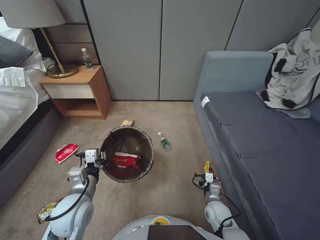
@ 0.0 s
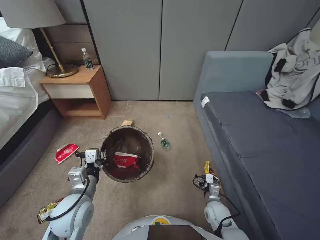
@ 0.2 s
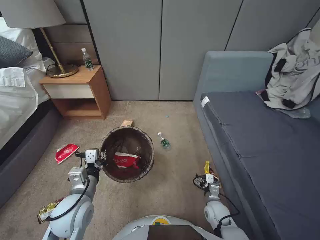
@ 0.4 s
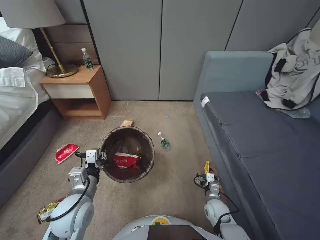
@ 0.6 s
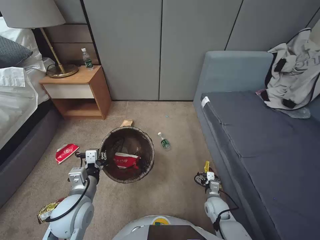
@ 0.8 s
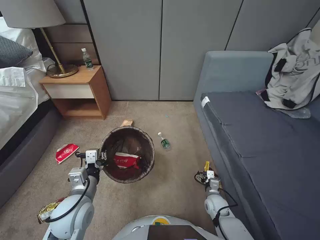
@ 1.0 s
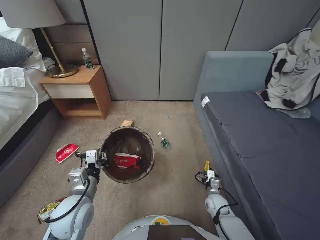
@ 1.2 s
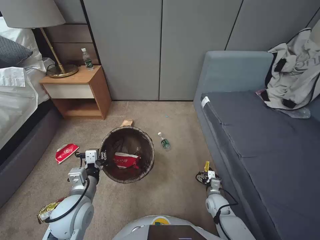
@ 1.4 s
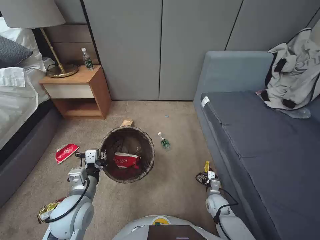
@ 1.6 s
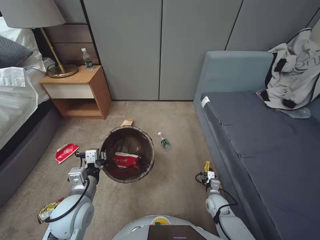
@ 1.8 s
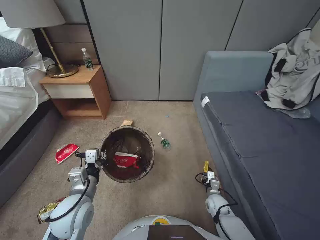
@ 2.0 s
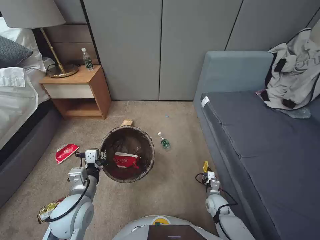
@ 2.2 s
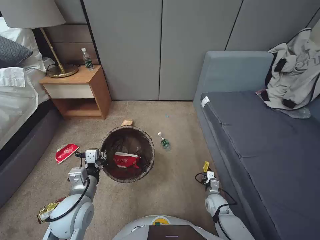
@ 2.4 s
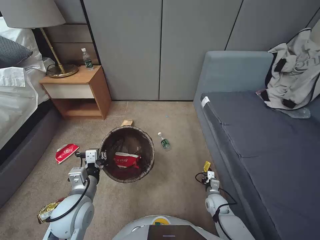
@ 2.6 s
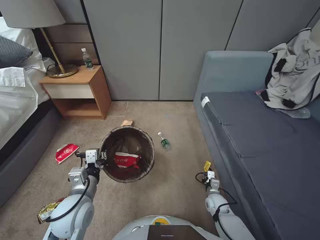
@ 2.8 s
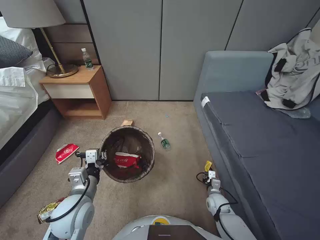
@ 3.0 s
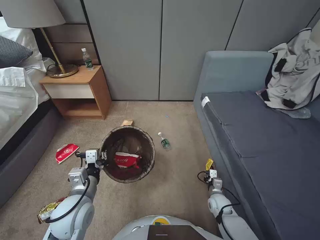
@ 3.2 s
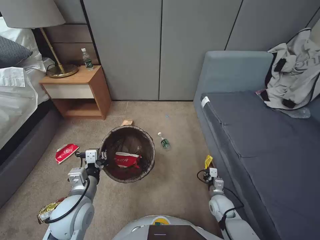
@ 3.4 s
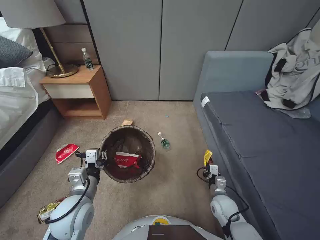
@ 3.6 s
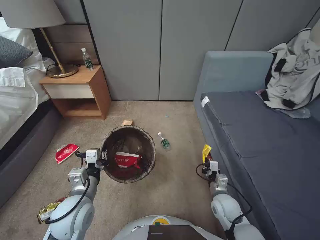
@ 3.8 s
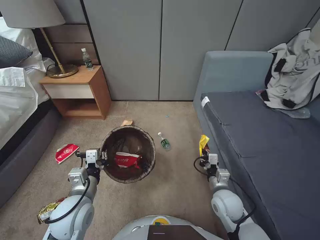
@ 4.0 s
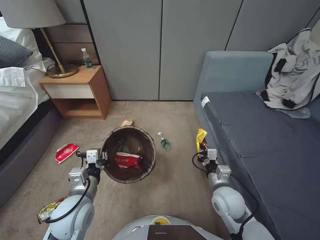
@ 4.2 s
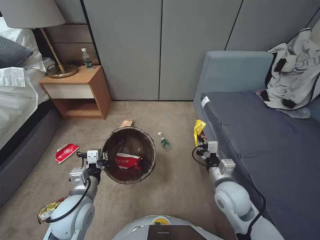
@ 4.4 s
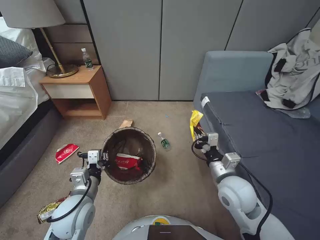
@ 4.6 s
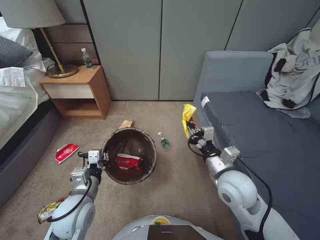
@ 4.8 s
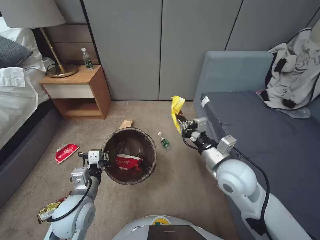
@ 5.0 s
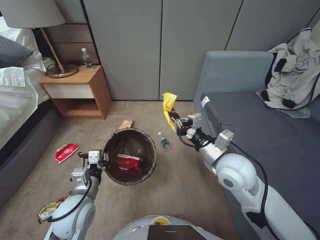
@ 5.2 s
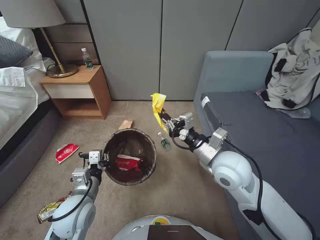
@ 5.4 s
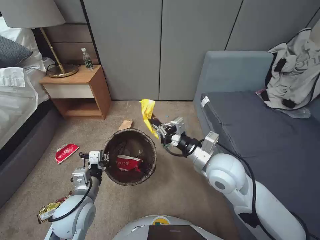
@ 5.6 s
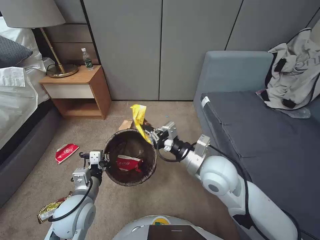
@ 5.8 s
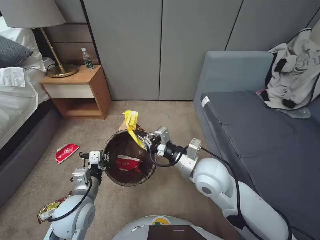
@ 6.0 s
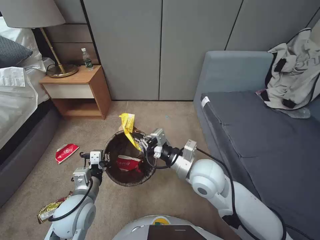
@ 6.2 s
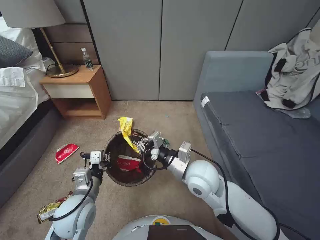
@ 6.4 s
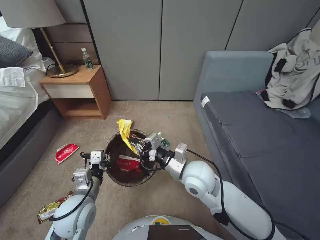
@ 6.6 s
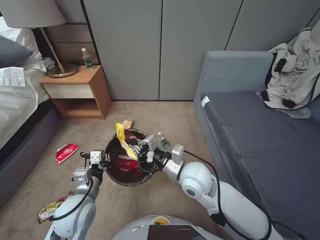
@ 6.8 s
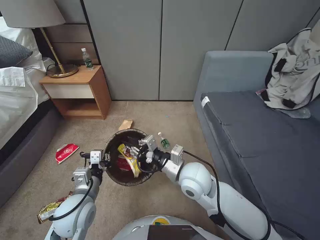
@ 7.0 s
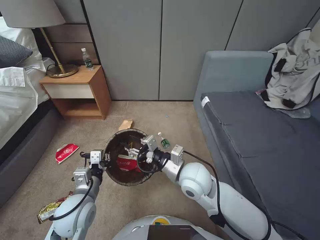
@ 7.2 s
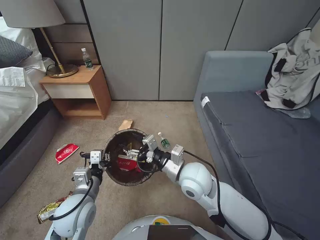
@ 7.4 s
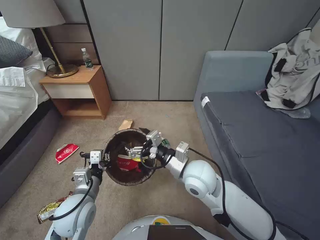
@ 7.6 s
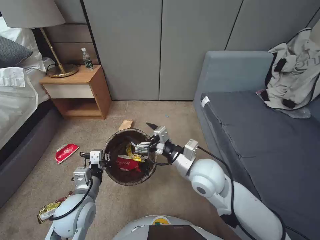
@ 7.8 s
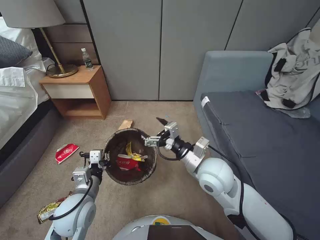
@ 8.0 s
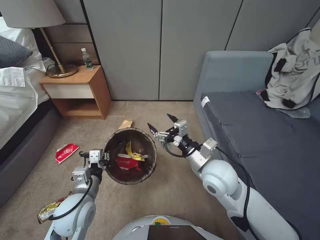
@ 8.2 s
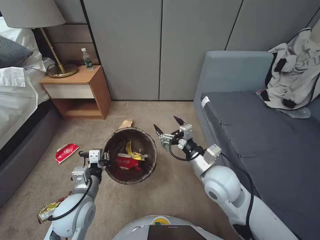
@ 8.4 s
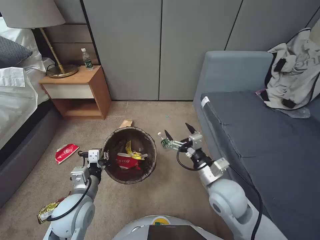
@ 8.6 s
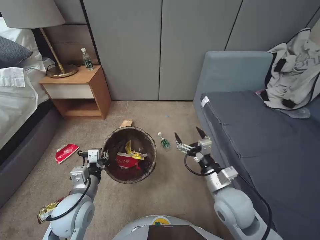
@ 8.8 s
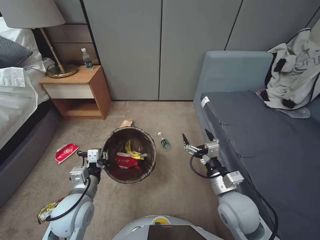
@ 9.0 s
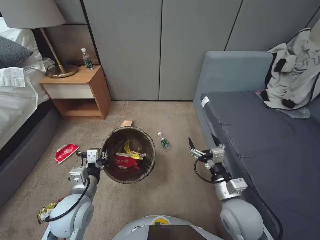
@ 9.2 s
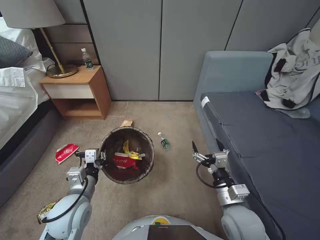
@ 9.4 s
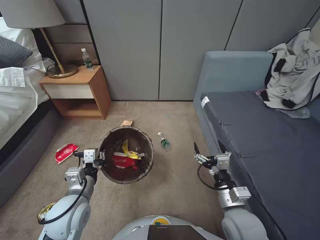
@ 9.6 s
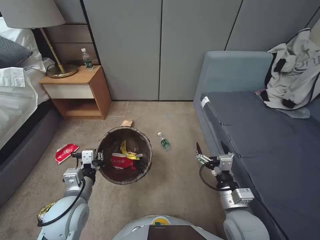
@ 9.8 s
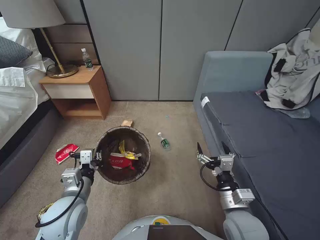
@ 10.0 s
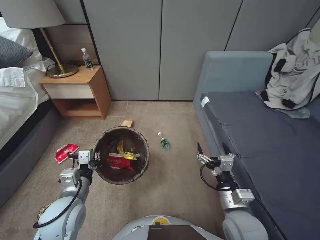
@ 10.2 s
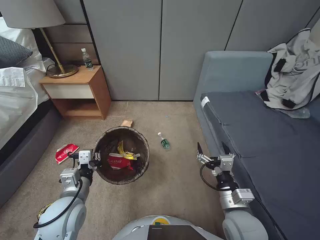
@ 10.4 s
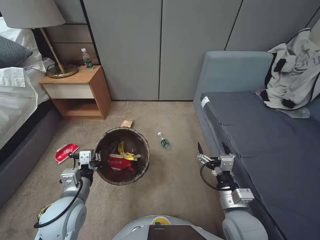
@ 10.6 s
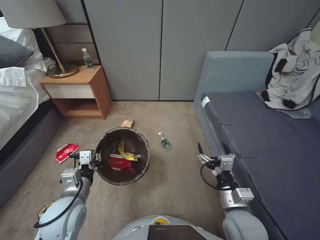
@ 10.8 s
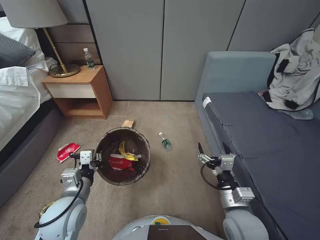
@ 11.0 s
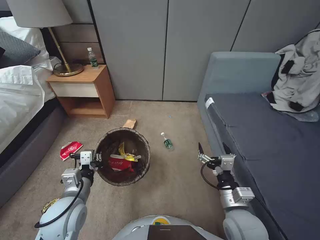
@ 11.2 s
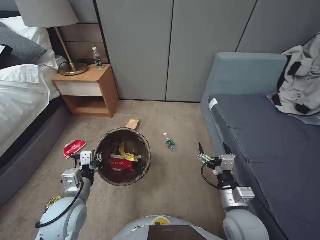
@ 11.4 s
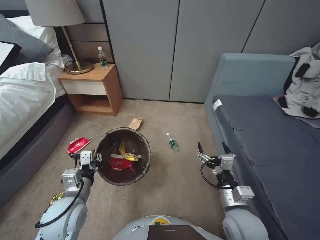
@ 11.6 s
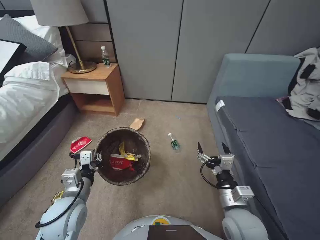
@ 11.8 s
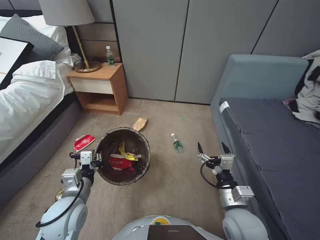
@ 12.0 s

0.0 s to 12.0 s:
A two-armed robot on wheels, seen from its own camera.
Task of the whole recording: Pick up the trash bin, then pick up the garbage from the floor and place it into the trash bin.
0.0 to 1.6 s: The right gripper shifts about 5 cm downward.
1.6 to 3.0 s: The right gripper closes its fingers.
3.0 to 4.4 s: The right gripper travels upward by some 25 cm.
4.4 to 6.0 s: The right gripper is displaced upward and to the left by about 15 cm.
6.0 to 7.6 s: The right gripper opens its fingers.
7.6 to 9.0 s: The right gripper is displaced to the right and backward by about 15 cm.
9.0 to 10.4 s: The right gripper changes place by about 5 cm.

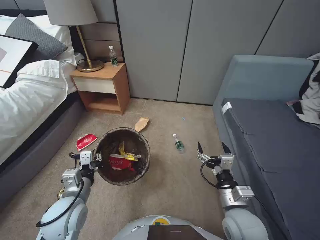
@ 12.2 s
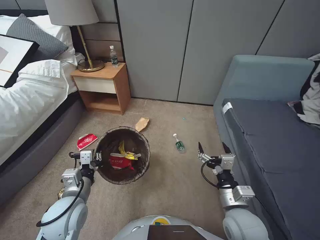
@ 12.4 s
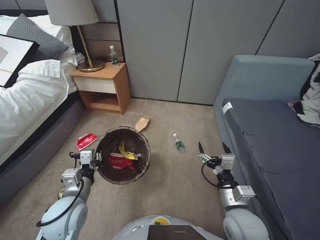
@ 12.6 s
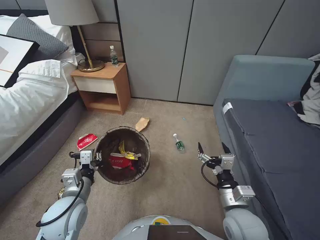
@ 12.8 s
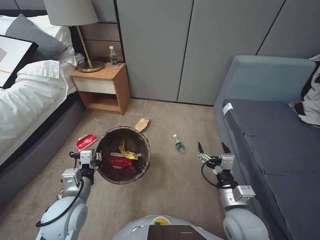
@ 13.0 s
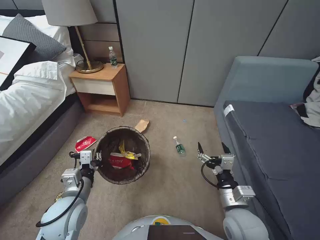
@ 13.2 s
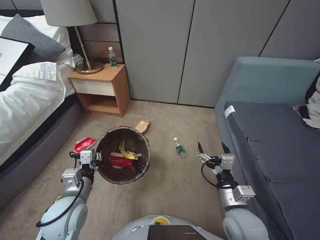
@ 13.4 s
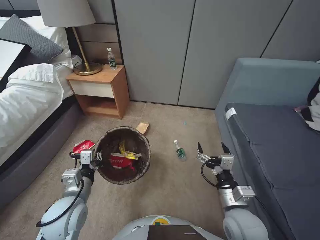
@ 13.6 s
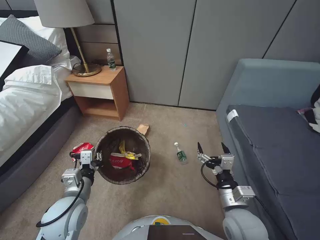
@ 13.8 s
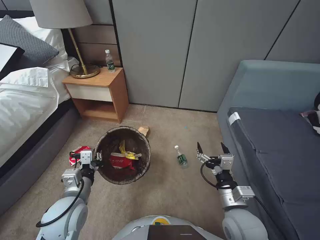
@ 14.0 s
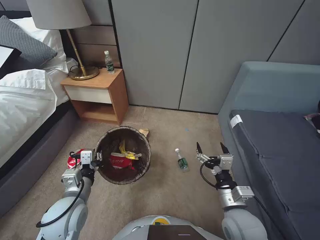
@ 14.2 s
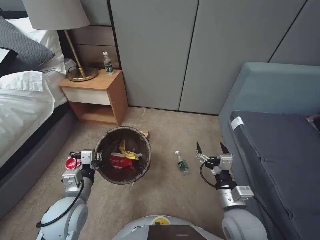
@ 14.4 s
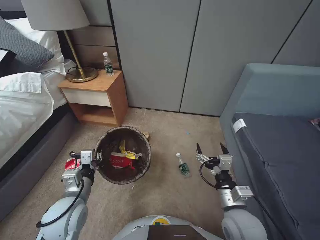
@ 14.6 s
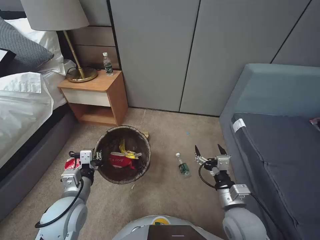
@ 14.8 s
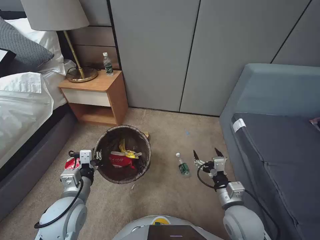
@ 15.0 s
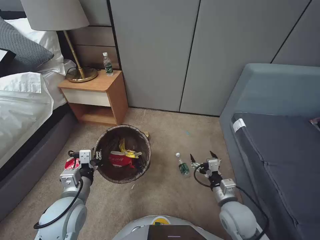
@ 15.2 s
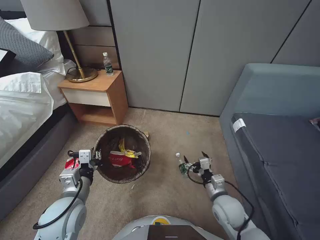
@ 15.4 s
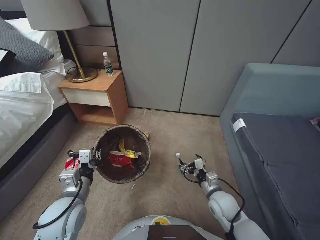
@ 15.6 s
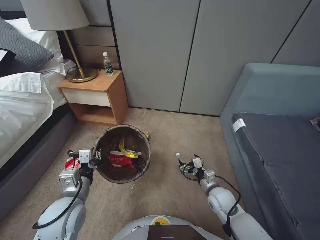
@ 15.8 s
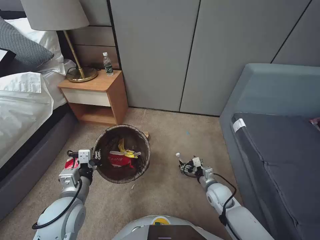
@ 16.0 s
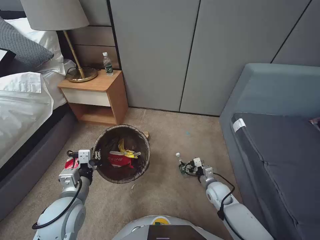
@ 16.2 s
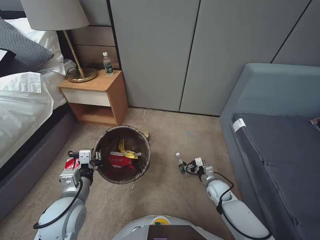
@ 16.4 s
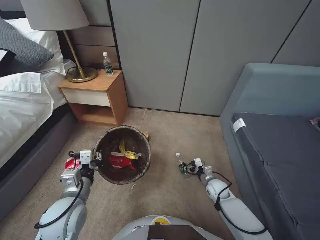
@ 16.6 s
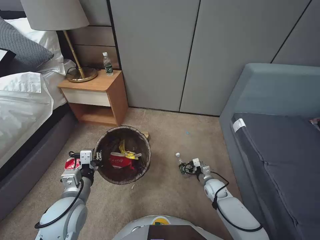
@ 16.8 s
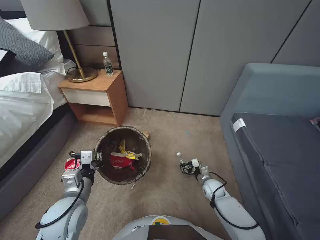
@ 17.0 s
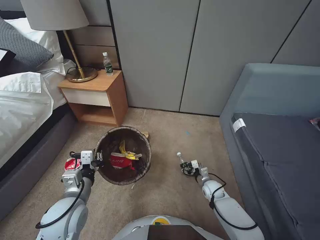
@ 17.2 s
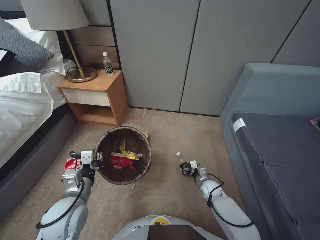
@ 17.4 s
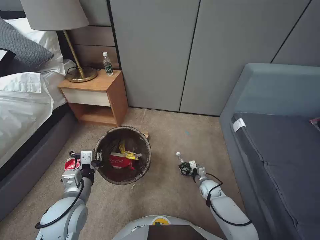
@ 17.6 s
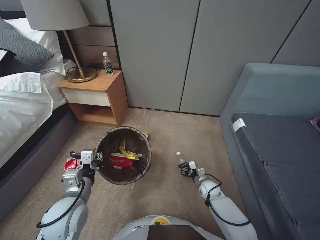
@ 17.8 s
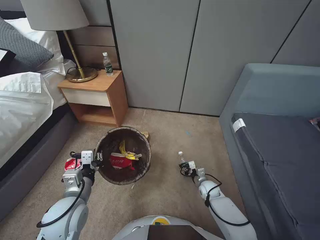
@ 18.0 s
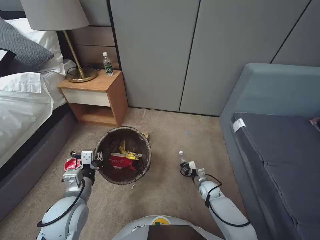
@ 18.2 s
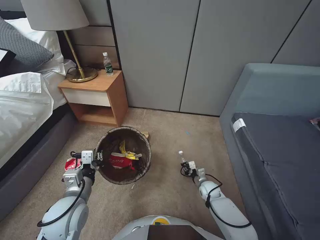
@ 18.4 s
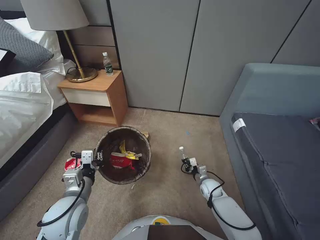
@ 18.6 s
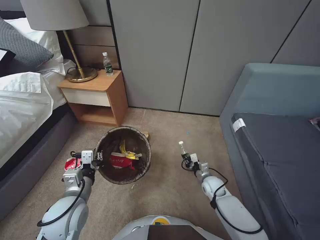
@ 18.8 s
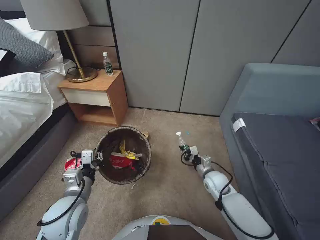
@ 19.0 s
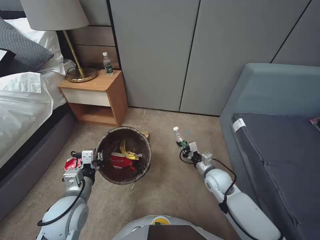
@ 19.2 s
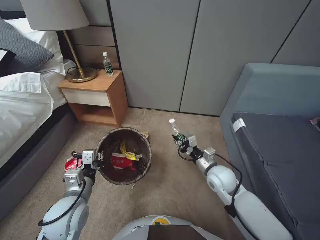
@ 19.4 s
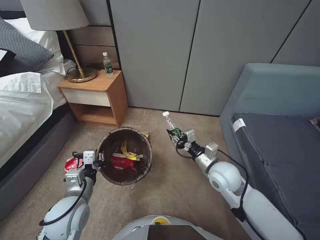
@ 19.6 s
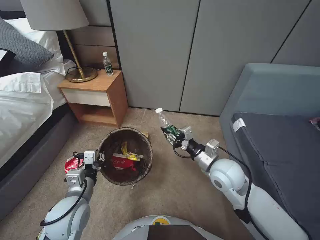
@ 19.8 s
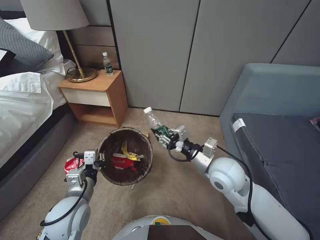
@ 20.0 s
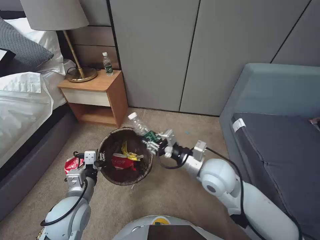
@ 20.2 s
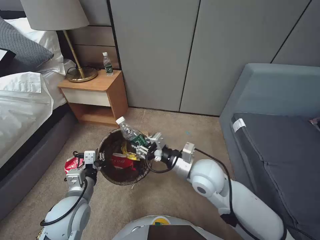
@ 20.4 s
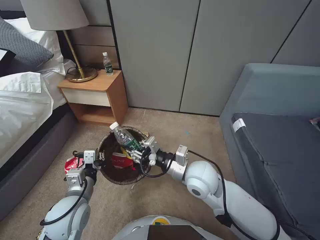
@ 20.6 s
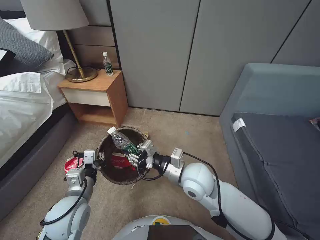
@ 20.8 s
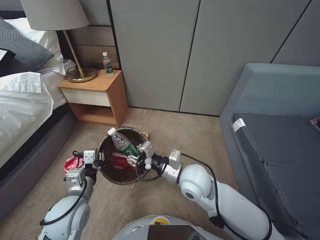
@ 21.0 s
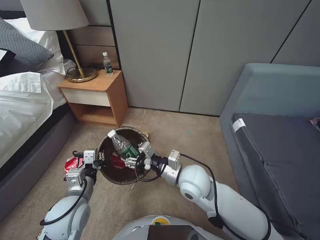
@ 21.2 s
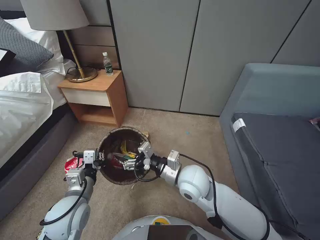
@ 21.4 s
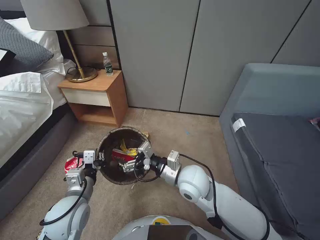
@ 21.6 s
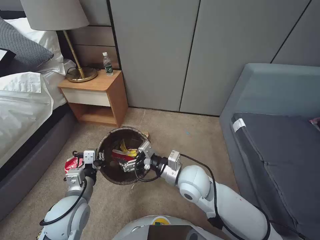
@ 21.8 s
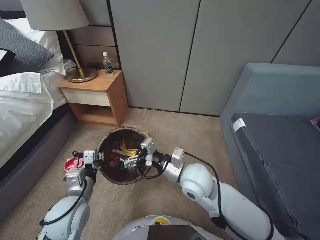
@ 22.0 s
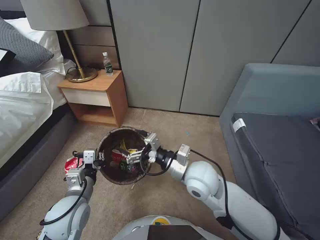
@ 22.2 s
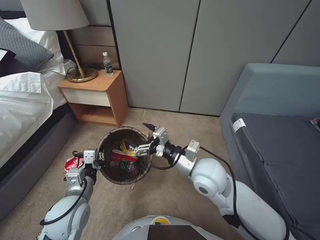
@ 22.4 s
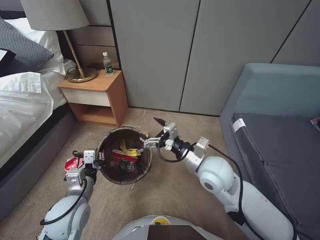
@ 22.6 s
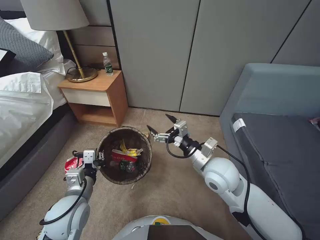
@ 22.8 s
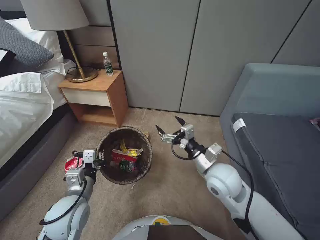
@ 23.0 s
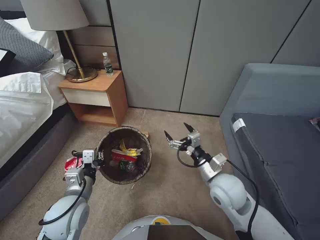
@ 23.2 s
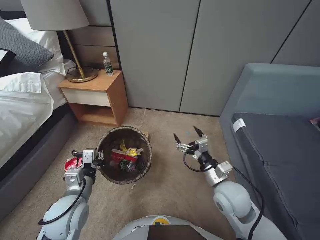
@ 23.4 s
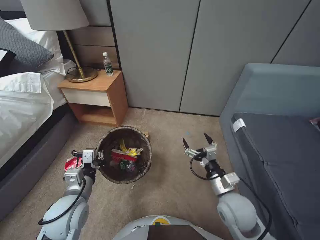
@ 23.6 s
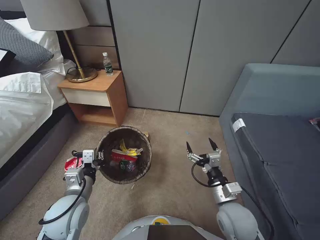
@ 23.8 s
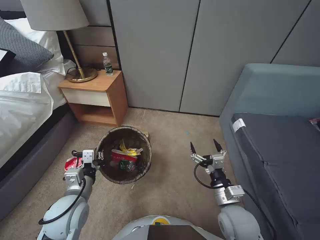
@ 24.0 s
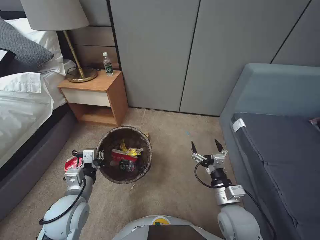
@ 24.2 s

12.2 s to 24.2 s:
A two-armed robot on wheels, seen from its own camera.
Task of the whole recording: Pick up the trash bin, then pick up the garbage from the floor and place it into the trash bin.
12.2 to 13.8 s: Neither gripper changes place.
13.8 to 15.2 s: The right gripper heads downward, covering some 5 cm.
15.2 to 16.6 s: The right gripper moves downward and forward, about 20 cm.
16.6 to 18.2 s: The right gripper travels downward by roughly 5 cm, and closes.
18.2 to 19.8 s: The right gripper shifts roughly 30 cm upward.
19.8 to 21.2 s: The right gripper heads to the left, covering some 10 cm.
21.2 to 22.6 s: The right gripper shifts about 5 cm to the right, and opens up.
22.6 to 24.2 s: The right gripper moves downward, backward and to the right, about 15 cm.
